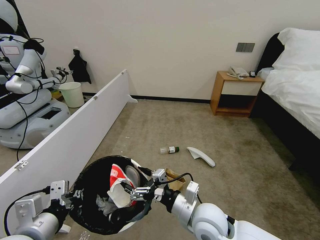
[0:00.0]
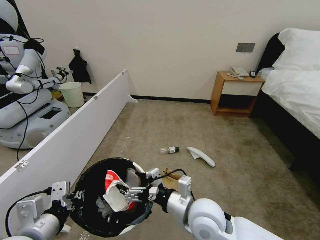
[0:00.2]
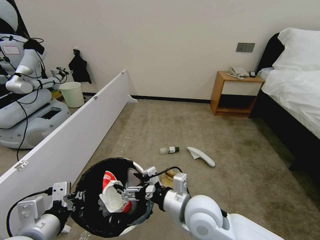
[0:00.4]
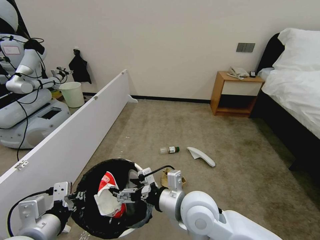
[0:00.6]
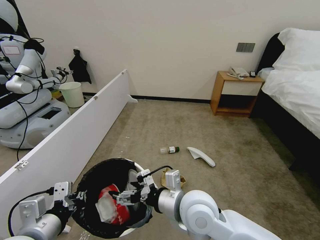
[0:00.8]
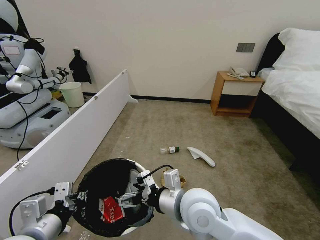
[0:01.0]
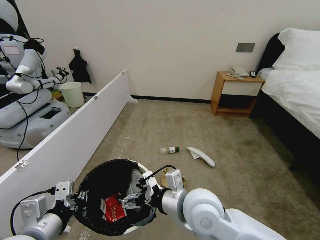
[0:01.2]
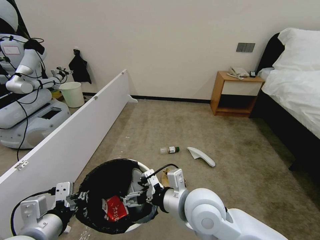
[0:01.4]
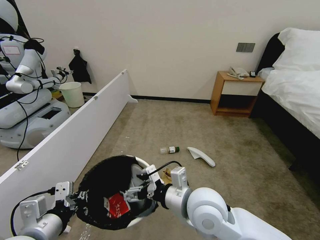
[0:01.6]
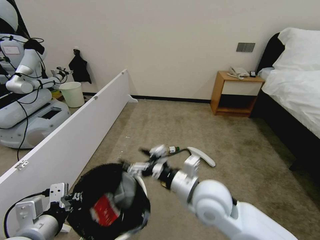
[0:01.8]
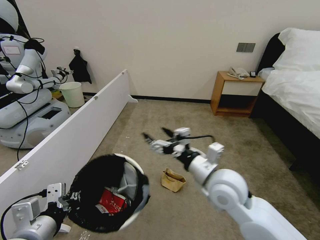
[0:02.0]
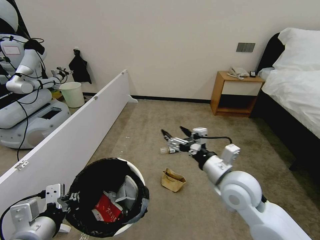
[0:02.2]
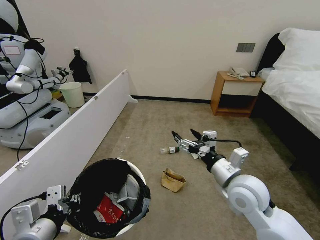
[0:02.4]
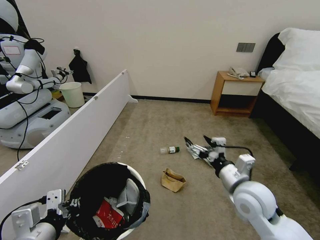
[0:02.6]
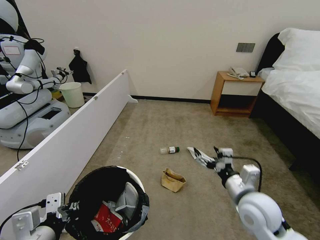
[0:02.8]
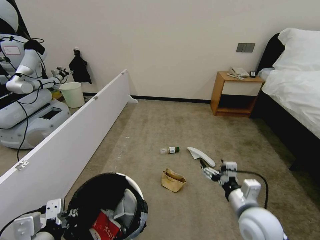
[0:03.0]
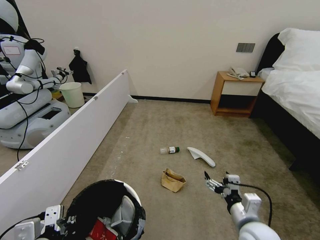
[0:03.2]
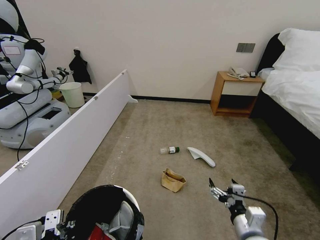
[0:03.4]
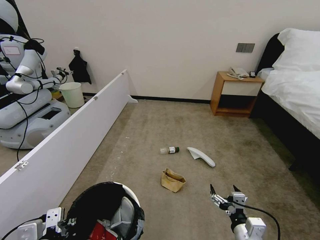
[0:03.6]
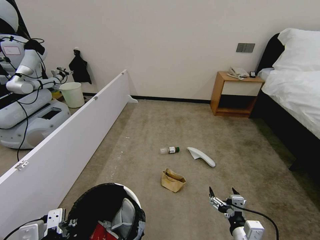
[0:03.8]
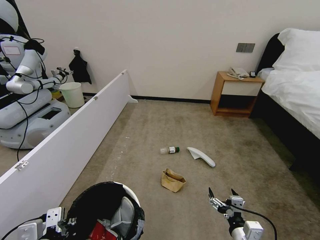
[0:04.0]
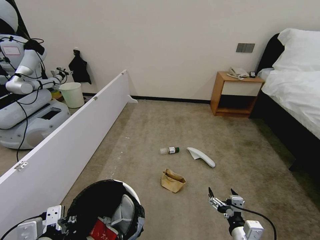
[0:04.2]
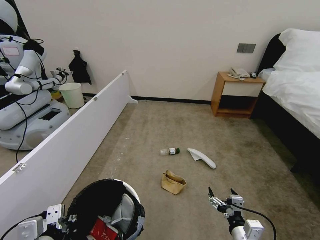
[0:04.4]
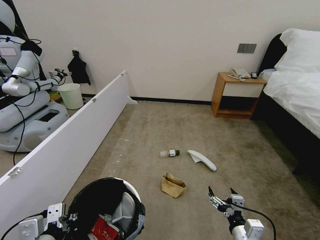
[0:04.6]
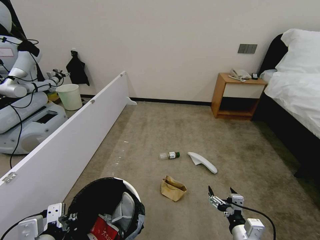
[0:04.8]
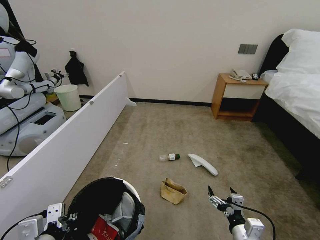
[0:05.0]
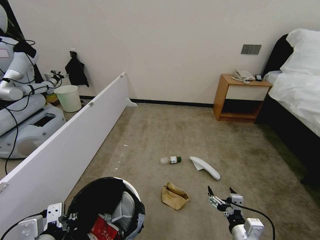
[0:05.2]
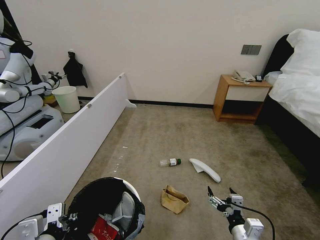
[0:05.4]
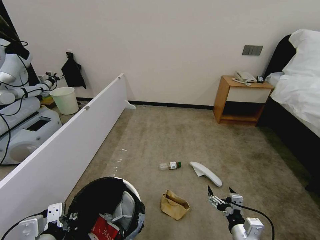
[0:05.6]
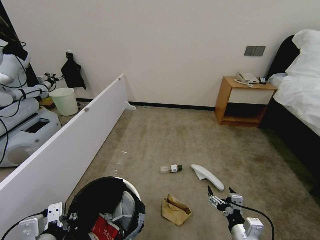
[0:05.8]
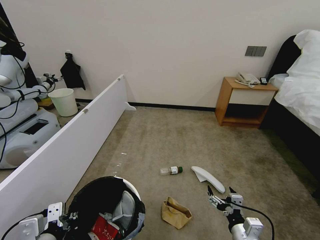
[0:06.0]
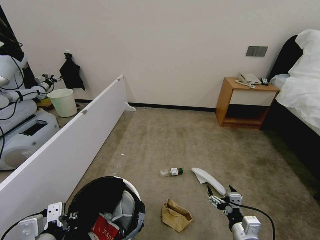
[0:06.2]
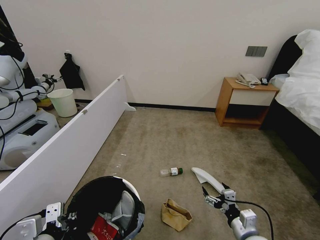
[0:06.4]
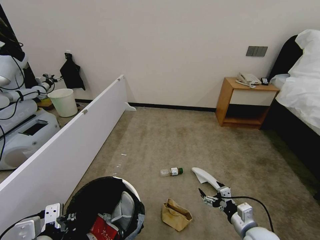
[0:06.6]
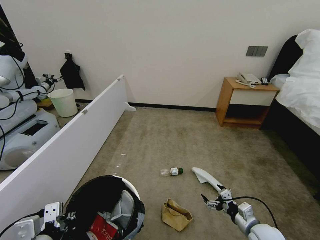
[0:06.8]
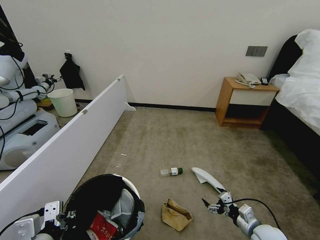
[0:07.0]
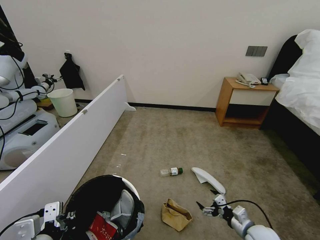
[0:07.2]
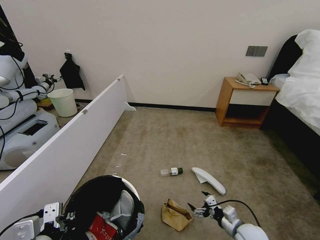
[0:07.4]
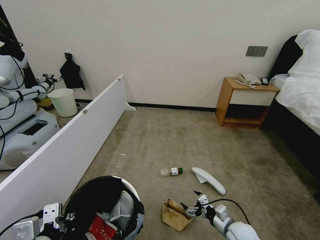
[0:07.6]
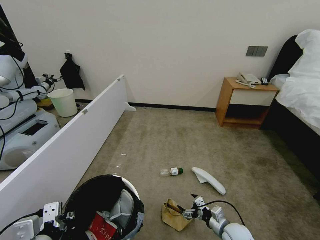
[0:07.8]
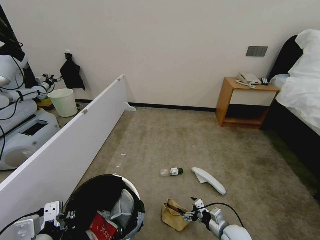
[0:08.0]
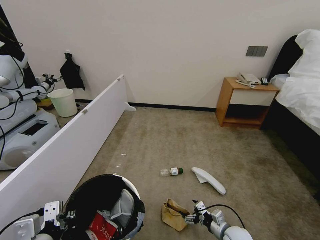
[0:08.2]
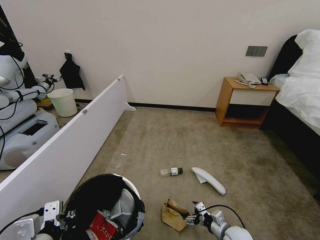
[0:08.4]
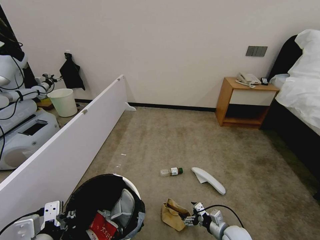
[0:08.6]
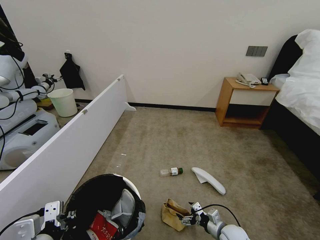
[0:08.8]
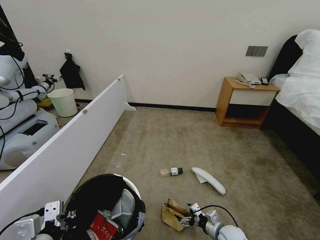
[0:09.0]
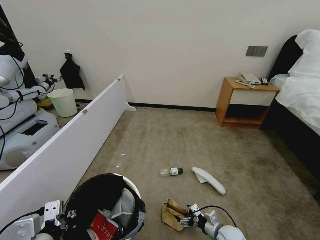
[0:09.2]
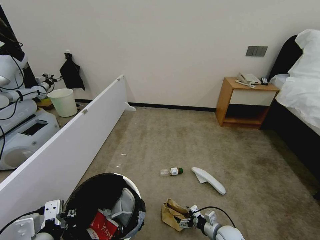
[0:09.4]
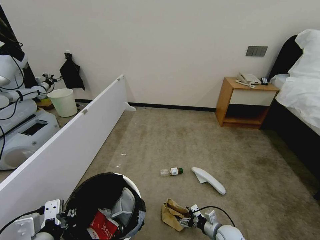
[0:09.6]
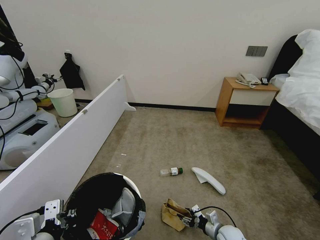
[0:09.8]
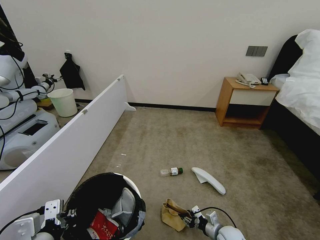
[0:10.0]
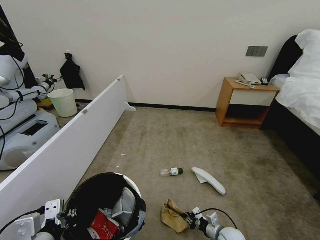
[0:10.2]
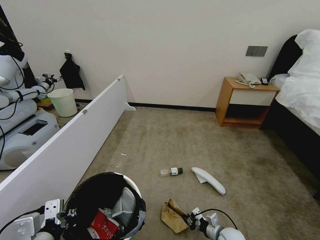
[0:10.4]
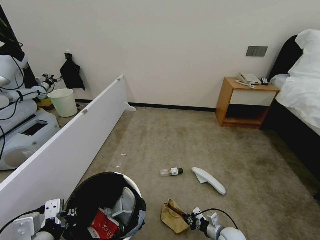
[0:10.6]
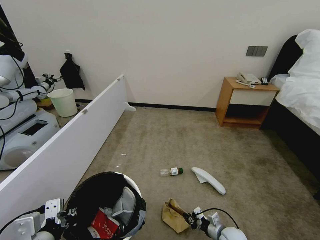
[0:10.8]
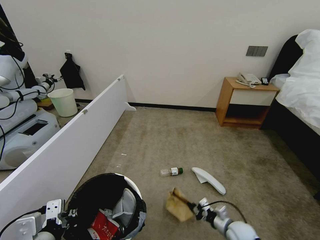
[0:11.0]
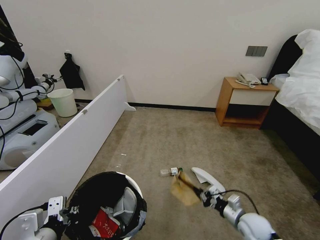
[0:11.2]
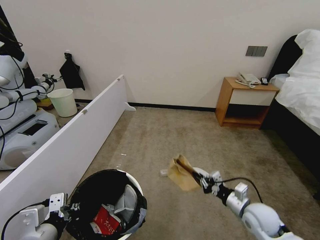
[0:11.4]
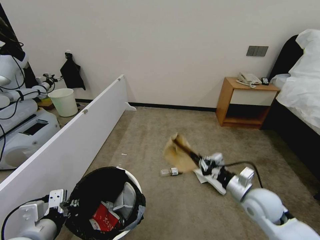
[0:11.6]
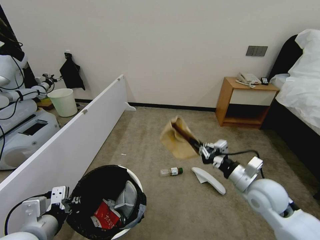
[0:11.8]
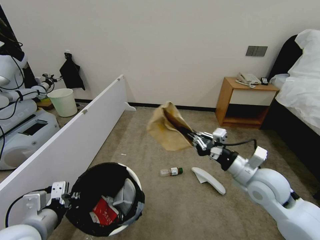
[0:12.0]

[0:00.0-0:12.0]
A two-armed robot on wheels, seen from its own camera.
Task of the whole recording: Pick up the trash bin, then pick up the garbage from the floor and place it into the trash bin.
0:00.0 to 0:01.6: The right gripper is displaced upward by roughly 10 cm.
0:01.6 to 0:03.0: The right gripper heads to the right and downward, covering approximately 15 cm.
0:03.0 to 0:04.4: The right gripper moves downward and backward, some 10 cm.
0:06.0 to 0:07.6: The right gripper goes roughly 15 cm forward and downward.
0:07.6 to 0:09.0: The right gripper travels downward by approximately 5 cm.
0:09.0 to 0:10.4: The right gripper closes.
0:10.4 to 0:12.0: The right gripper shifts roughly 35 cm upward, while the left gripper goes roughly 5 cm forward.

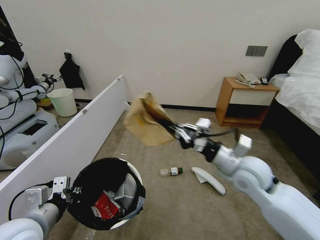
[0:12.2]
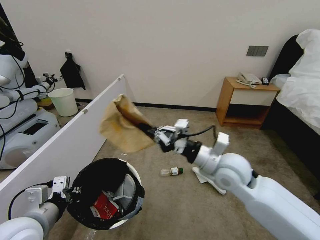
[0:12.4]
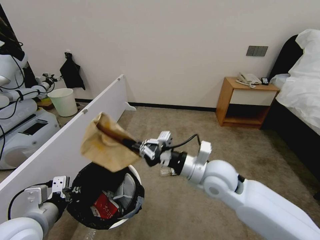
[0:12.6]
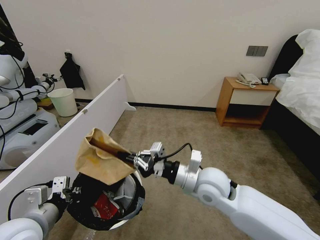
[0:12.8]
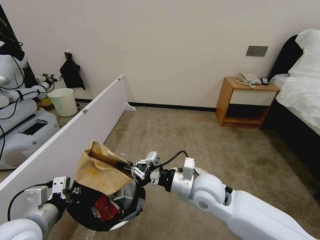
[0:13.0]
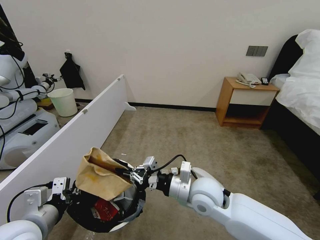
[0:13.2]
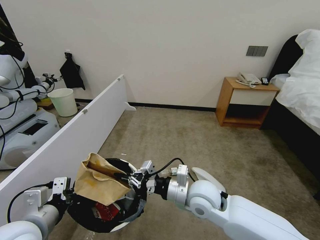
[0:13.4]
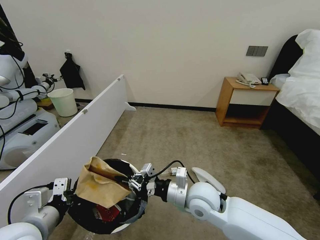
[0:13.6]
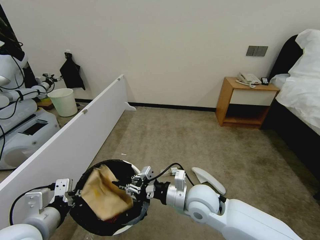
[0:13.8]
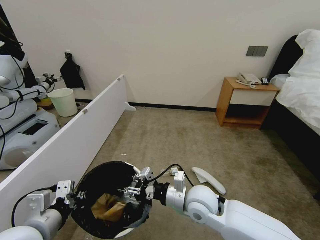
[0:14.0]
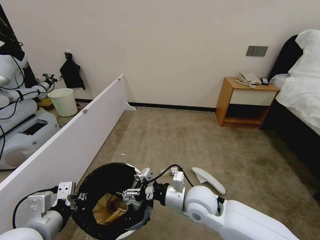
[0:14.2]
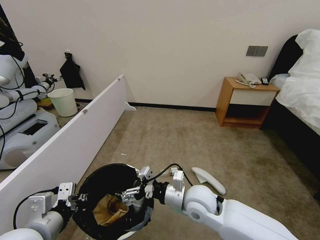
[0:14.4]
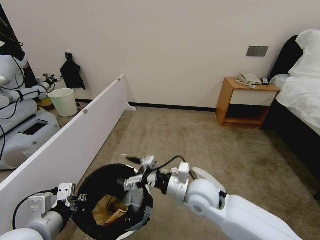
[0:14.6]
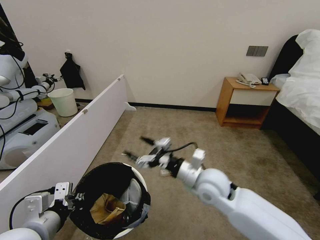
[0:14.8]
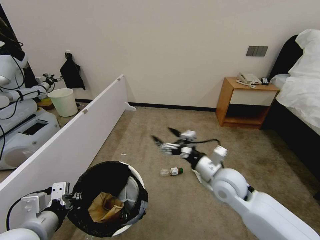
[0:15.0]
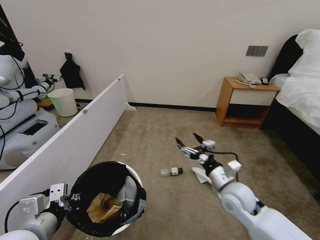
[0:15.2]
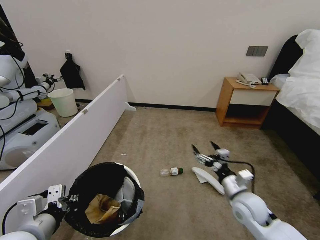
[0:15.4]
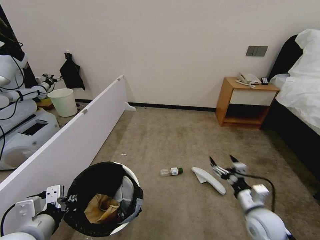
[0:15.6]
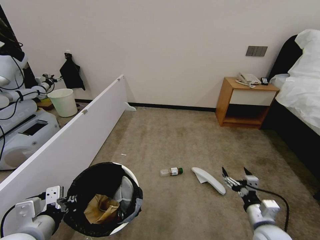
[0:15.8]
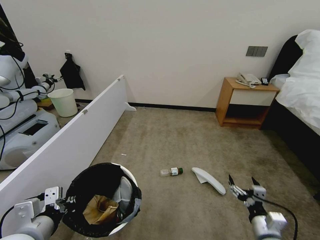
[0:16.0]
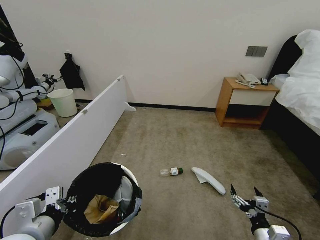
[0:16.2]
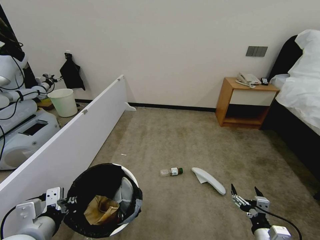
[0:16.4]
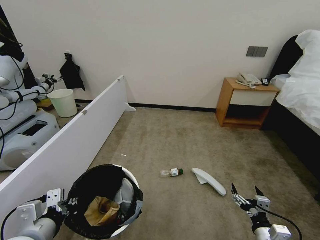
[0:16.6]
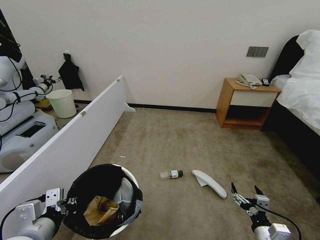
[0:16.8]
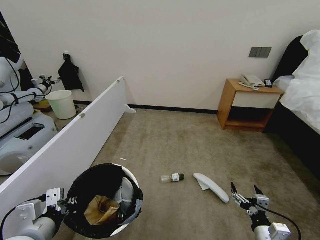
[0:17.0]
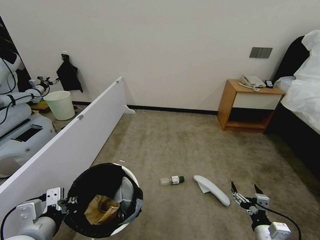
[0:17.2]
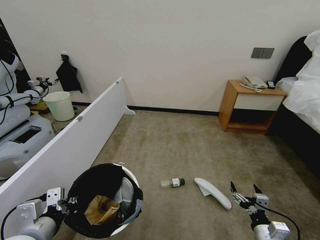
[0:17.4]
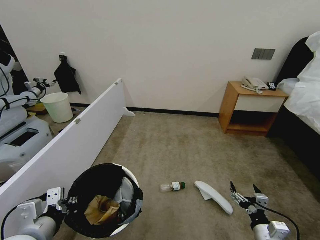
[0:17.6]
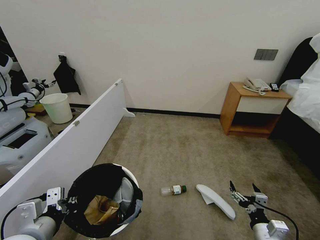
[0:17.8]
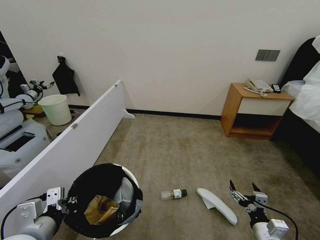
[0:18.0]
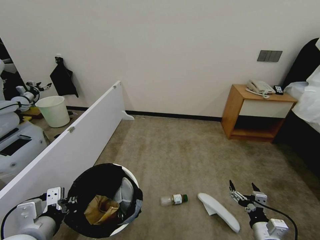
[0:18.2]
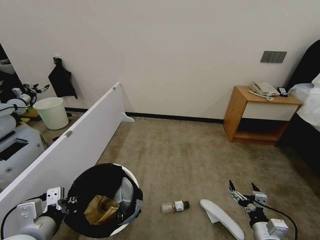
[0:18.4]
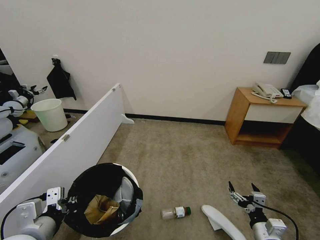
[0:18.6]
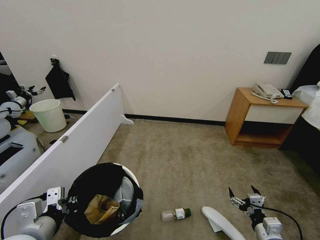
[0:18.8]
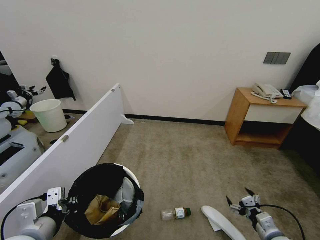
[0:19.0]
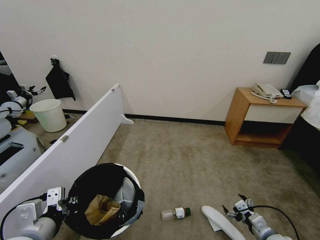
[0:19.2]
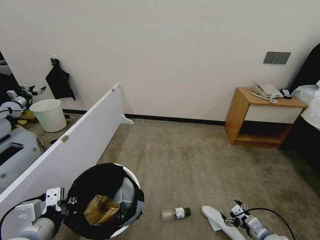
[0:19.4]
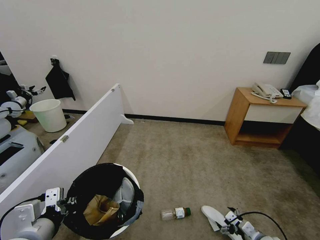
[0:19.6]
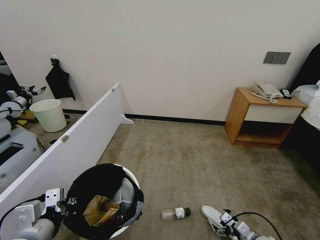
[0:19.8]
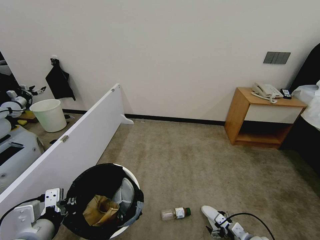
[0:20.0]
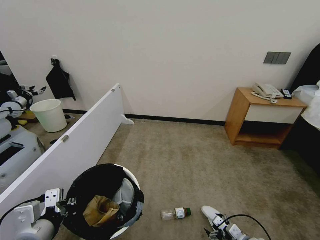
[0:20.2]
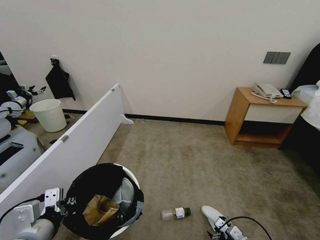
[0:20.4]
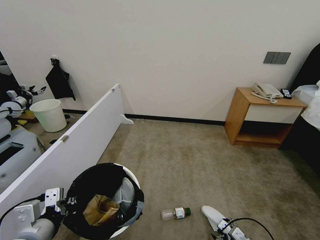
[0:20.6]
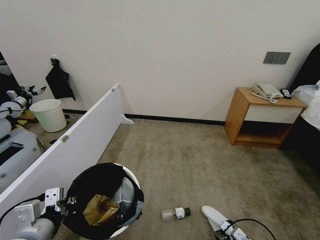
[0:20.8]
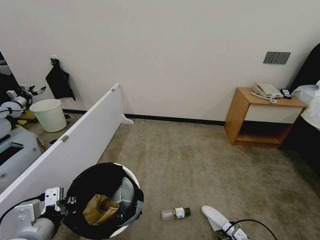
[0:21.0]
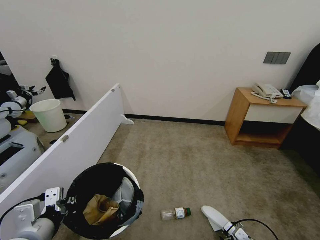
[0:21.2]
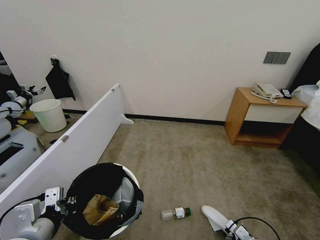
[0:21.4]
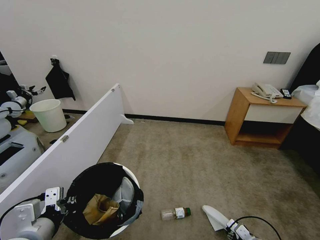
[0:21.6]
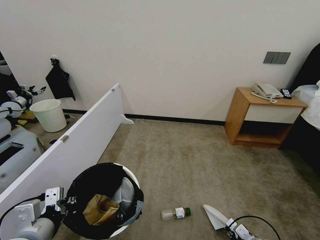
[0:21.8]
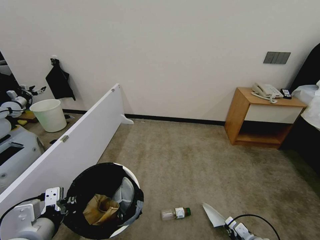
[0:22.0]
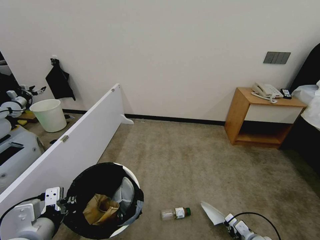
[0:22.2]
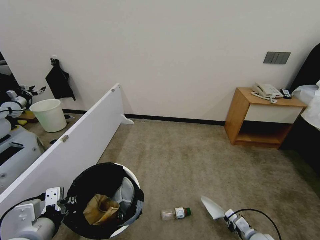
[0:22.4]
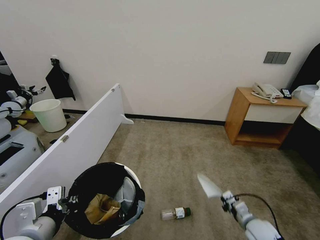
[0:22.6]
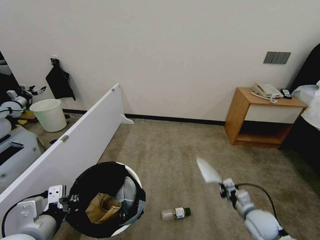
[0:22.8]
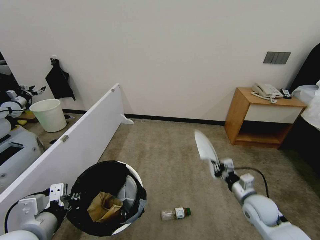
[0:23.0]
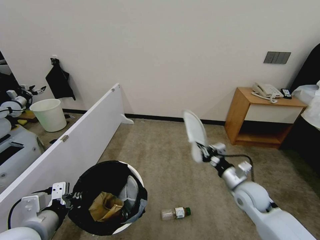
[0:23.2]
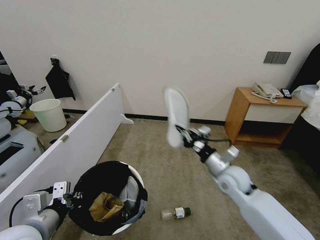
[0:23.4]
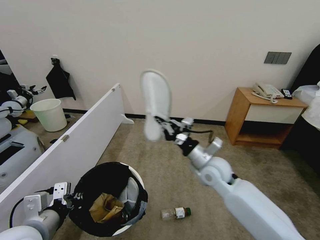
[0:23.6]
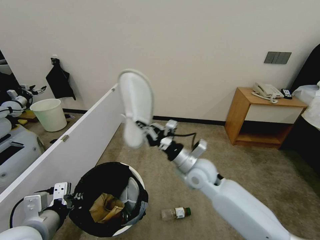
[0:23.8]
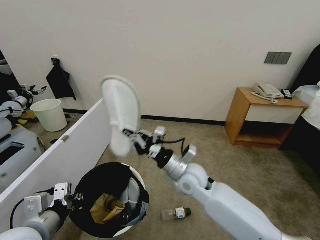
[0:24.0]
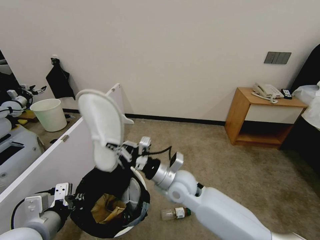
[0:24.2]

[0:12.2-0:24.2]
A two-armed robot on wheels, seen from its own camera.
Task of the whole recording: Pick up the trash bin, then pick up the garbage from the floor and place it into the trash bin.
0:12.2 to 0:13.8: The right gripper is displaced to the left and downward by approximately 15 cm.
0:13.8 to 0:15.2: The right gripper heads to the right, covering about 10 cm, and opens its fingers.
0:15.2 to 0:16.6: The right gripper travels backward, downward and to the right by about 20 cm.
0:18.2 to 0:19.8: The right gripper moves downward, about 10 cm.
0:19.8 to 0:21.2: The grippers make only small movements.
0:21.2 to 0:22.6: The right gripper heads upward, covering approximately 5 cm, and closes up.
0:22.6 to 0:24.2: The right gripper moves to the left and upward, some 35 cm.
